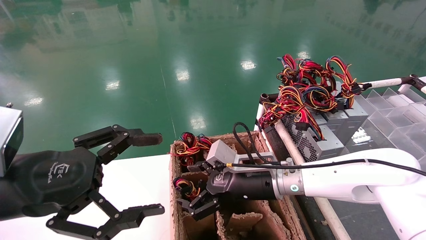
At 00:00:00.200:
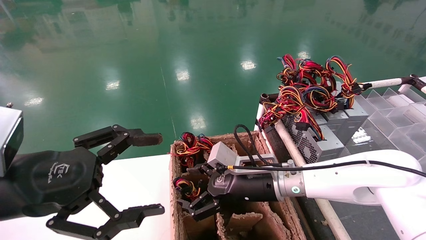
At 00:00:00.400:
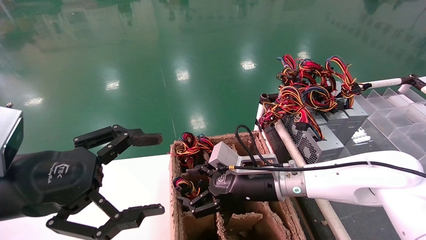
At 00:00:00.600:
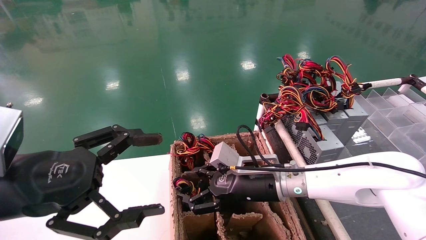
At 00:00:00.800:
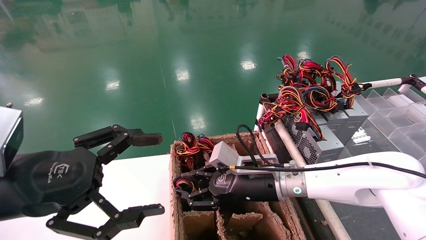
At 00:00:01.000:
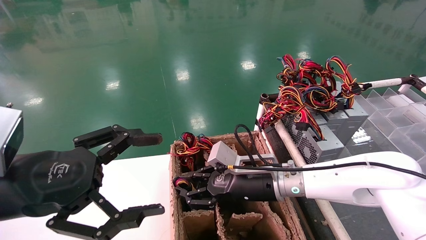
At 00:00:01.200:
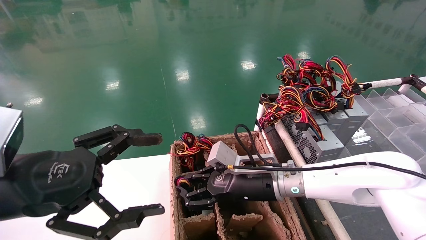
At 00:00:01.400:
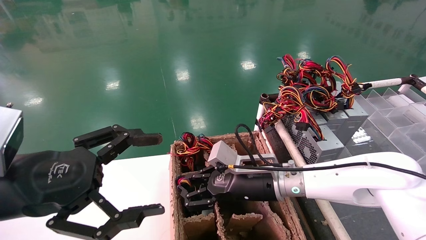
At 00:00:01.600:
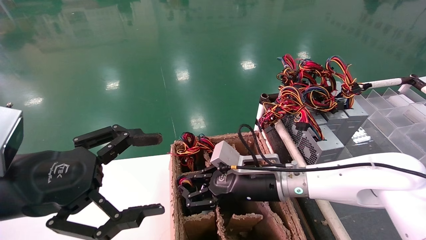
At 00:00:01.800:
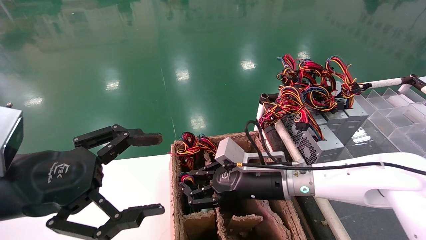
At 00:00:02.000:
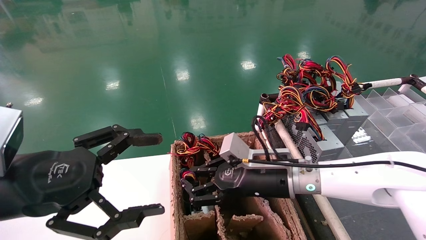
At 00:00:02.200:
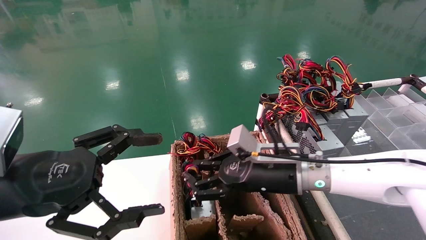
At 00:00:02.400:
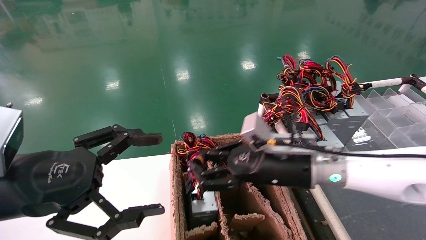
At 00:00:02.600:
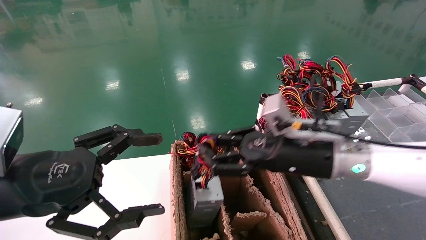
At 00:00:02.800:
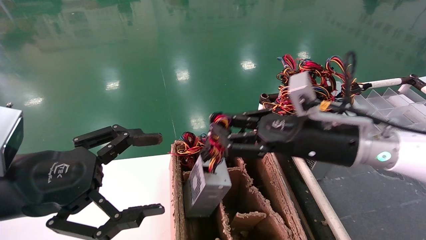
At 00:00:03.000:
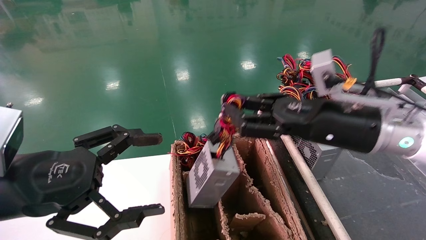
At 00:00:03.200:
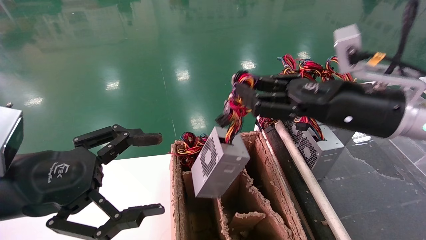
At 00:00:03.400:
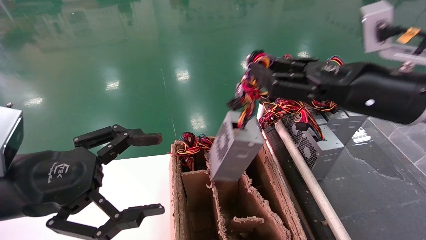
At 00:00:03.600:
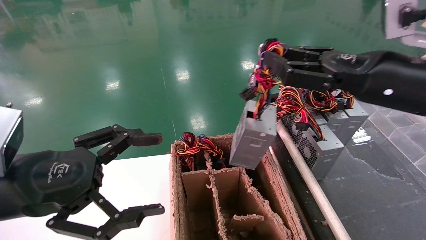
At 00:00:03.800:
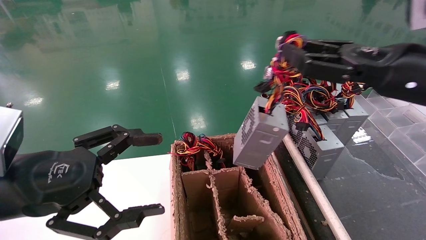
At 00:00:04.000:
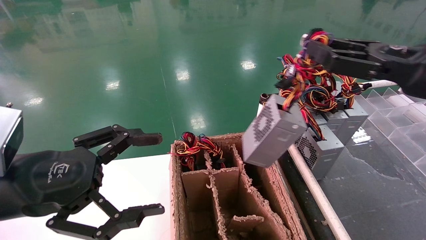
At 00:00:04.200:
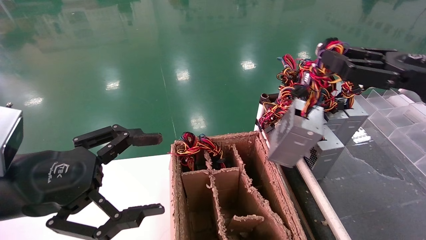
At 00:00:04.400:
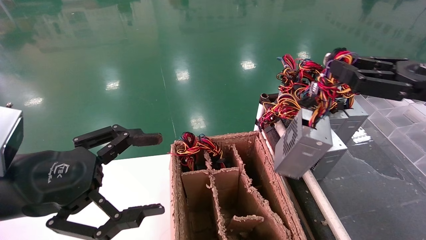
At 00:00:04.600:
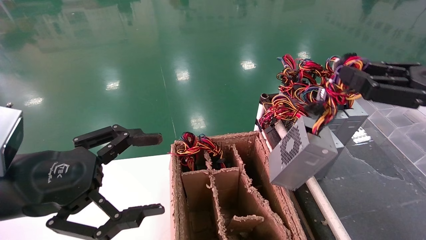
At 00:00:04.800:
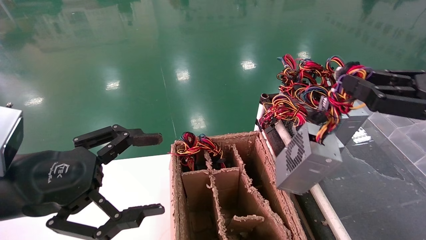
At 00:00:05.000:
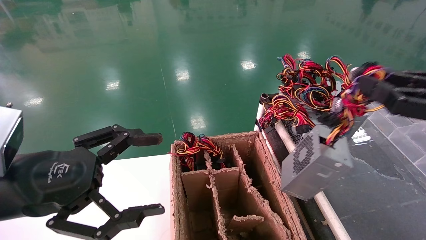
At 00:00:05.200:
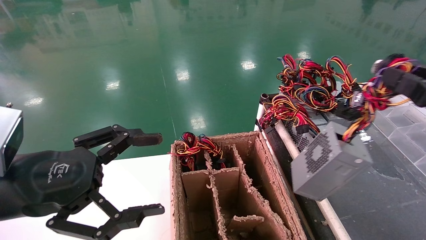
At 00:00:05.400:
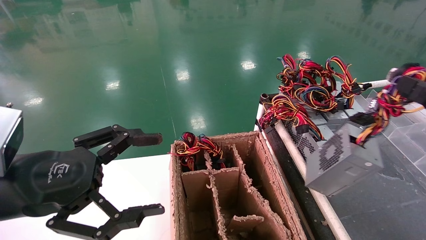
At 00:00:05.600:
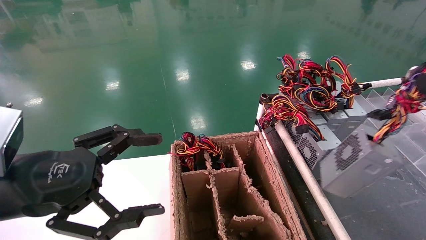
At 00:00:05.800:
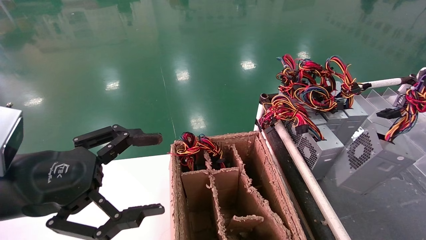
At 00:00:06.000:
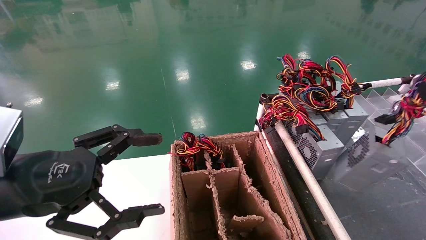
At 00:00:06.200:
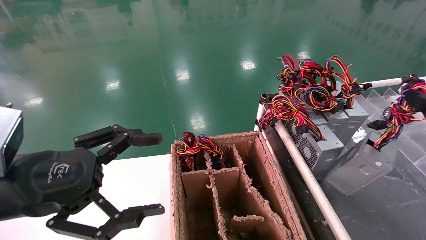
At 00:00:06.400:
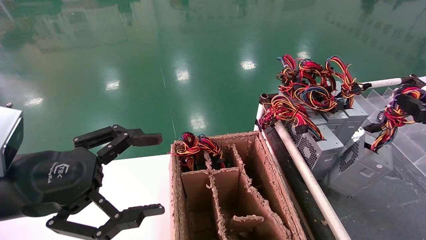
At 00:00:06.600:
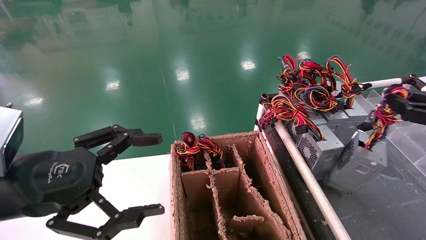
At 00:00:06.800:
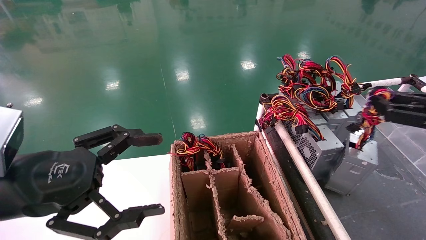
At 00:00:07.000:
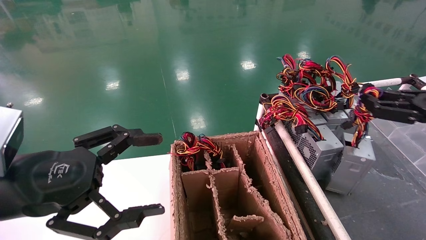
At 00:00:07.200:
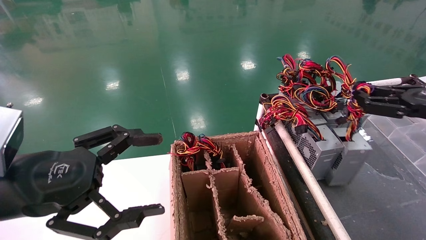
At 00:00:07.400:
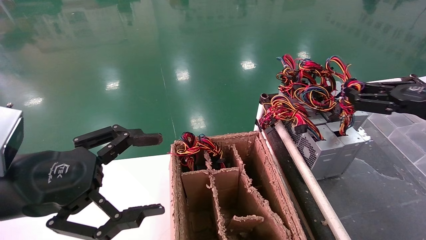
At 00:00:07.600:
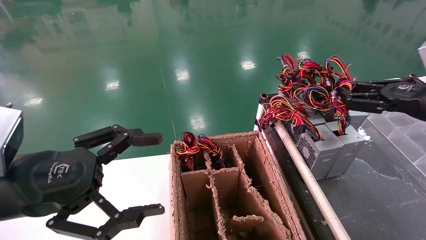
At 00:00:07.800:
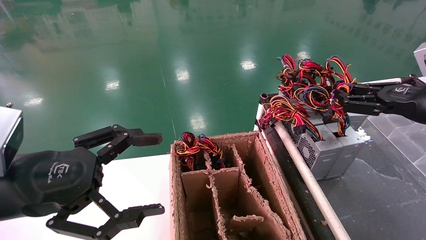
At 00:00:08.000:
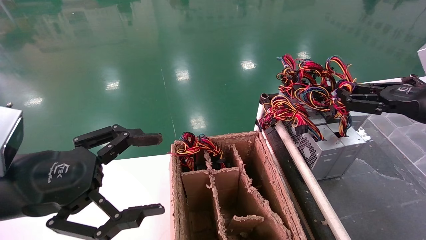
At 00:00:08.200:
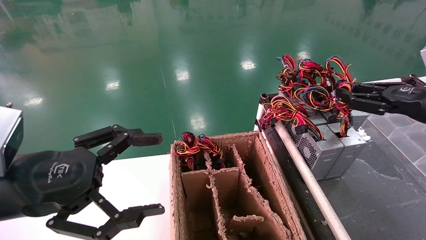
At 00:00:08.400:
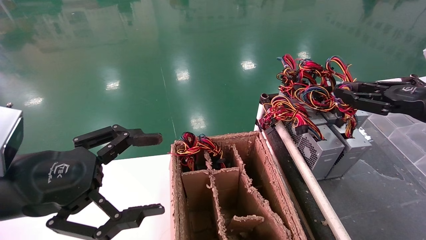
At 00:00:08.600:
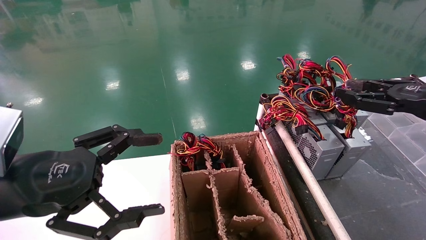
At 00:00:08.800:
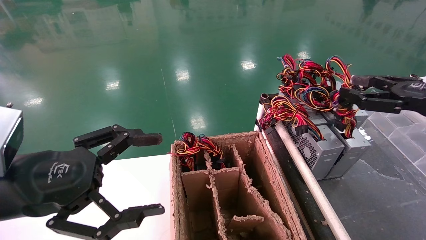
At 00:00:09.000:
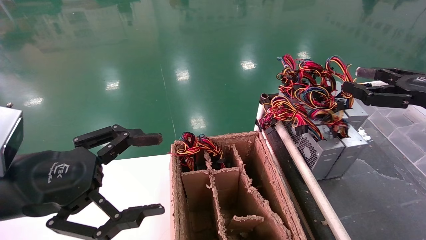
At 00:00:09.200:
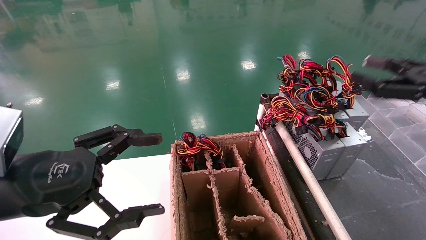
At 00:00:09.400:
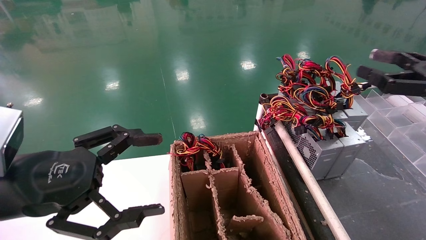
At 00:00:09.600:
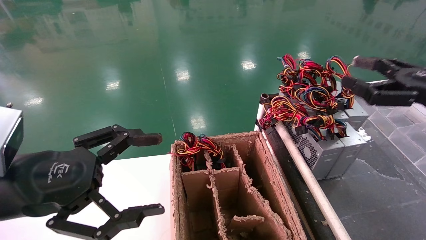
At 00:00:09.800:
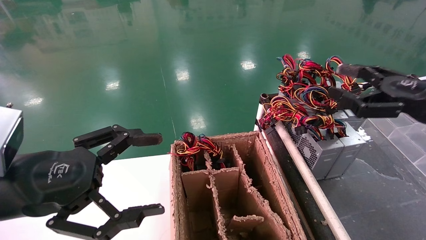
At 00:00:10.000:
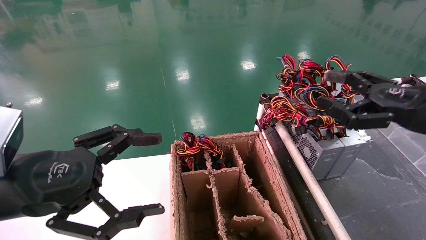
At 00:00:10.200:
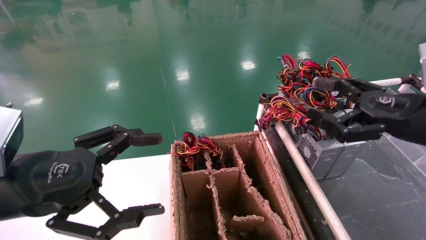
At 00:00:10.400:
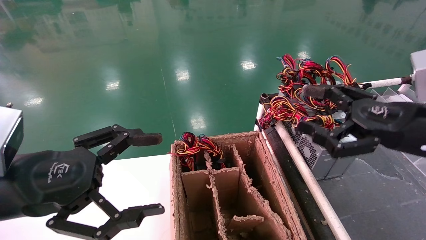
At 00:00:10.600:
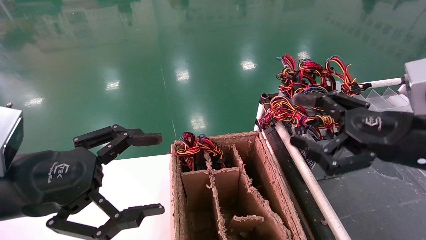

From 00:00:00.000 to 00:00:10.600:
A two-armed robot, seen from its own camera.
Step, from 00:00:01.800 to 00:00:08.400: Place the power supply on the operating table.
From 00:00:00.000 to 00:00:01.600: The right gripper closes.
From 00:00:01.600 to 00:00:03.000: The right gripper goes some 20 cm upward and to the right.
From 00:00:03.000 to 00:00:04.600: The right gripper goes roughly 15 cm to the right and backward.
From 00:00:04.600 to 00:00:06.000: The right gripper goes some 10 cm to the right.
From 00:00:06.000 to 00:00:07.600: The right gripper goes approximately 10 cm forward and to the left.
From 00:00:07.600 to 00:00:09.000: The right gripper opens.
From 00:00:09.000 to 00:00:10.600: The right gripper travels to the left by some 10 cm, and opens its fingers.
